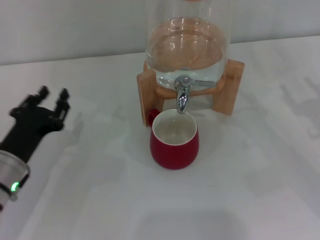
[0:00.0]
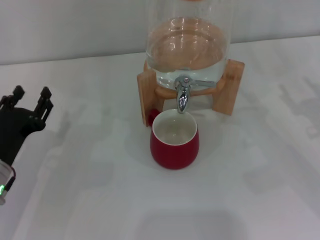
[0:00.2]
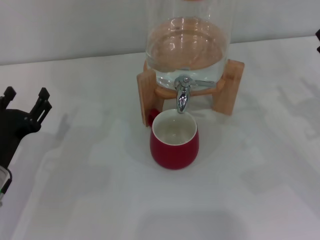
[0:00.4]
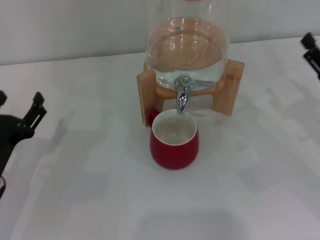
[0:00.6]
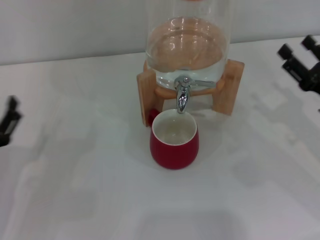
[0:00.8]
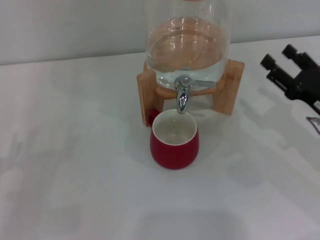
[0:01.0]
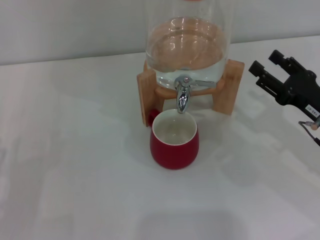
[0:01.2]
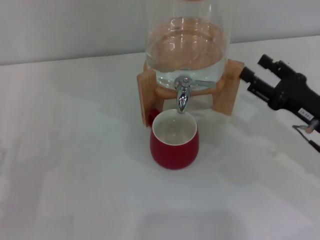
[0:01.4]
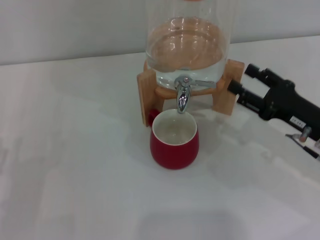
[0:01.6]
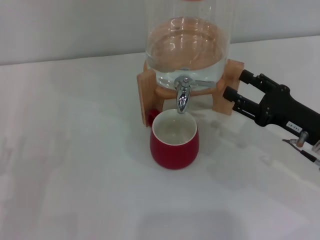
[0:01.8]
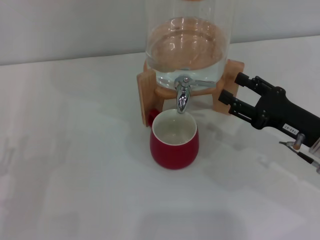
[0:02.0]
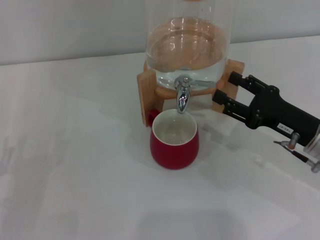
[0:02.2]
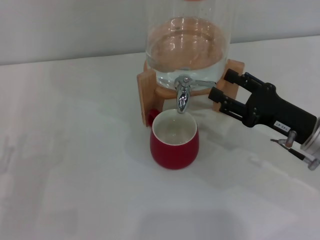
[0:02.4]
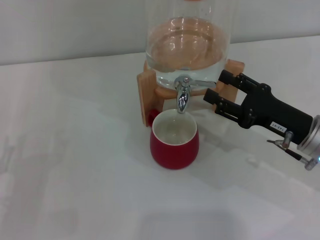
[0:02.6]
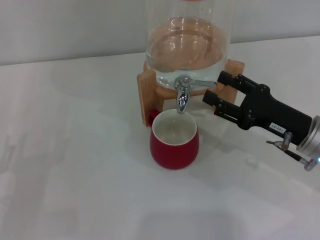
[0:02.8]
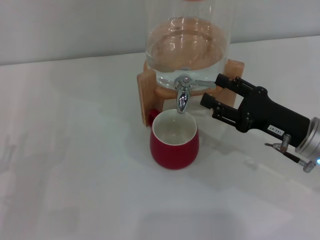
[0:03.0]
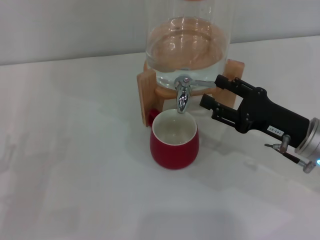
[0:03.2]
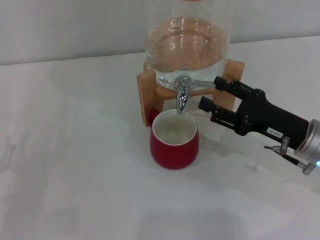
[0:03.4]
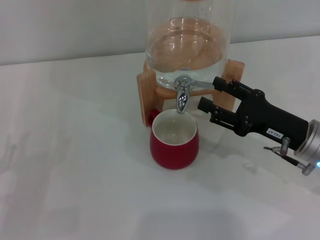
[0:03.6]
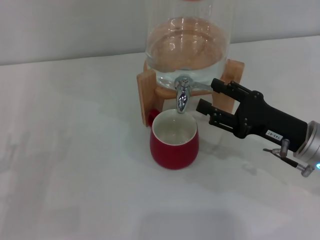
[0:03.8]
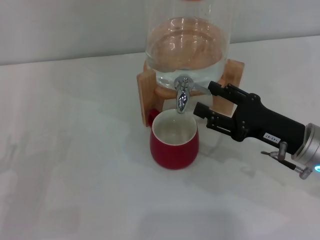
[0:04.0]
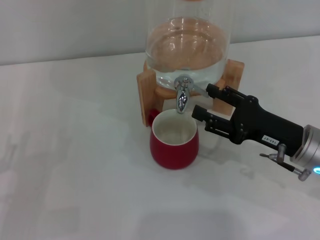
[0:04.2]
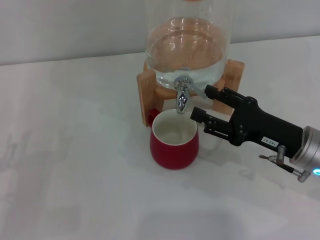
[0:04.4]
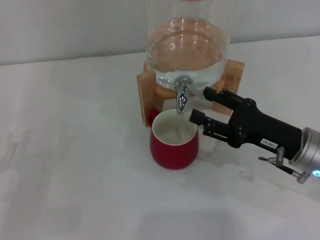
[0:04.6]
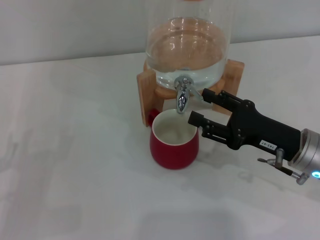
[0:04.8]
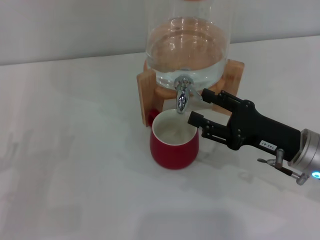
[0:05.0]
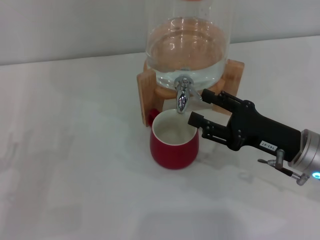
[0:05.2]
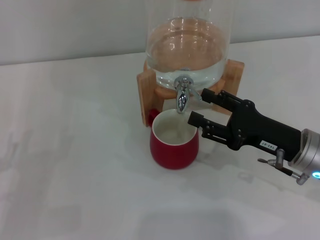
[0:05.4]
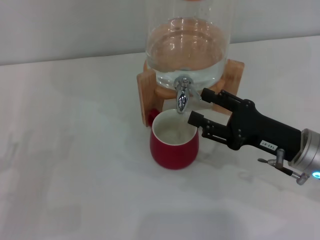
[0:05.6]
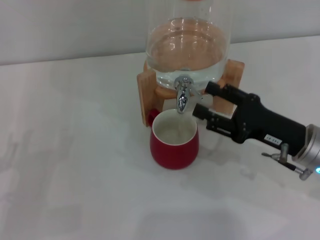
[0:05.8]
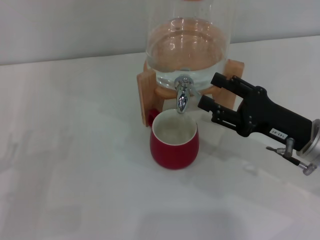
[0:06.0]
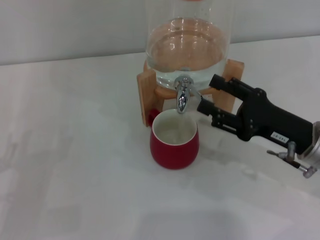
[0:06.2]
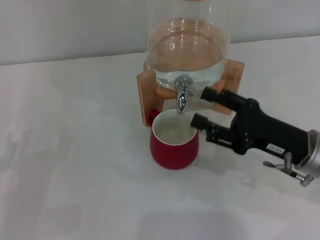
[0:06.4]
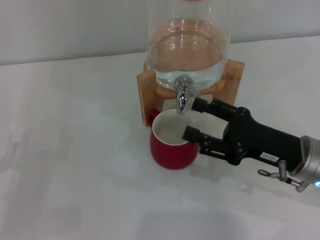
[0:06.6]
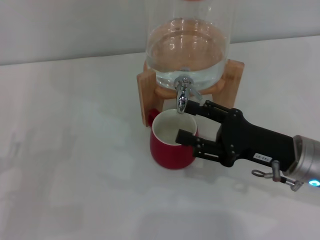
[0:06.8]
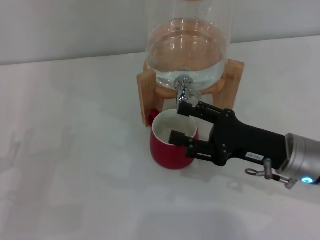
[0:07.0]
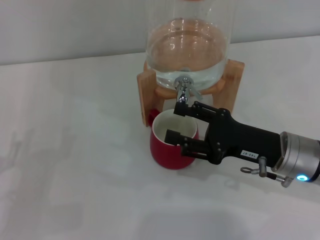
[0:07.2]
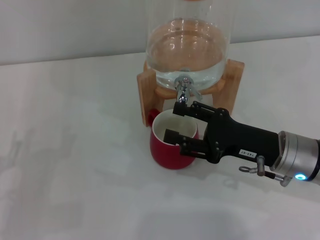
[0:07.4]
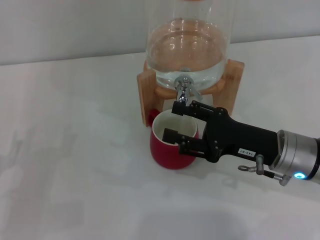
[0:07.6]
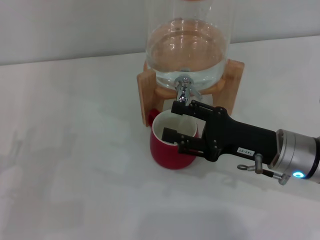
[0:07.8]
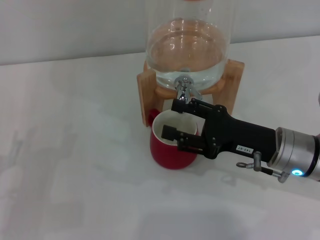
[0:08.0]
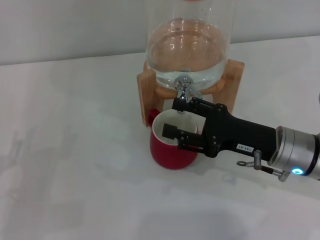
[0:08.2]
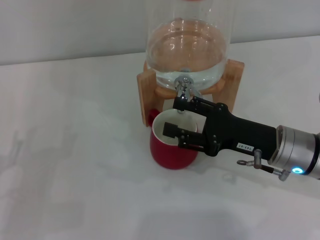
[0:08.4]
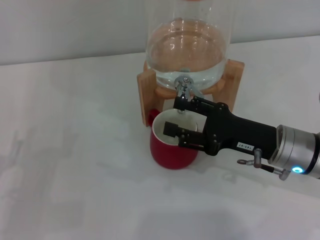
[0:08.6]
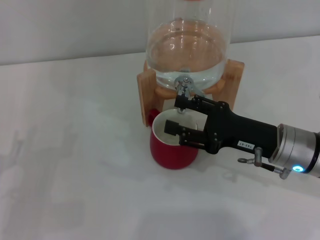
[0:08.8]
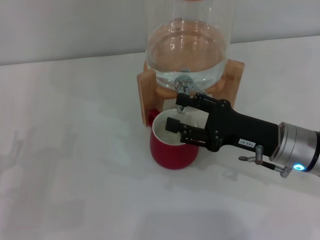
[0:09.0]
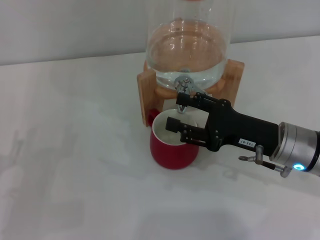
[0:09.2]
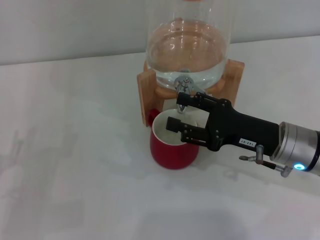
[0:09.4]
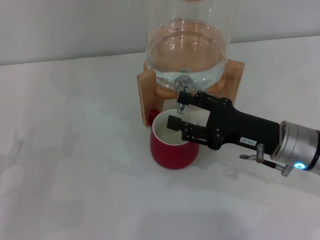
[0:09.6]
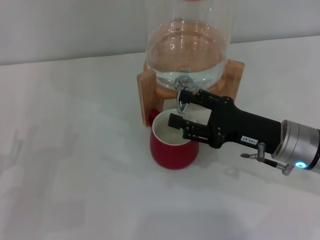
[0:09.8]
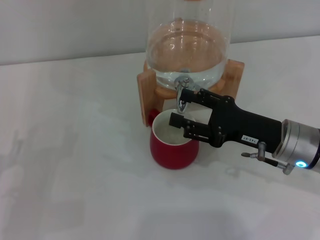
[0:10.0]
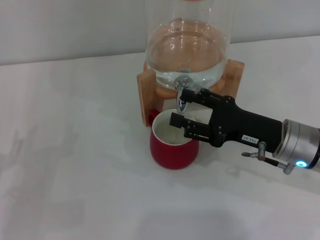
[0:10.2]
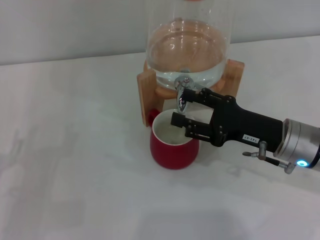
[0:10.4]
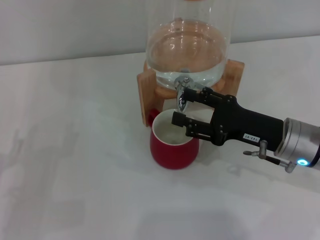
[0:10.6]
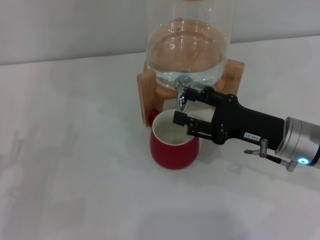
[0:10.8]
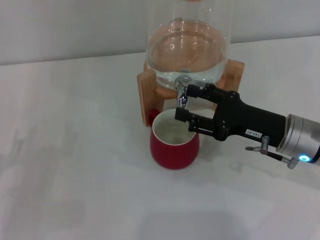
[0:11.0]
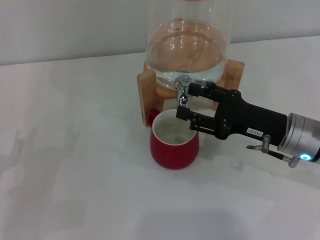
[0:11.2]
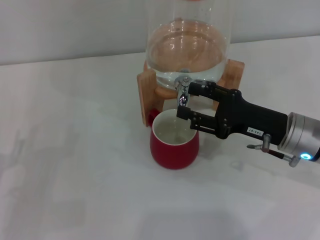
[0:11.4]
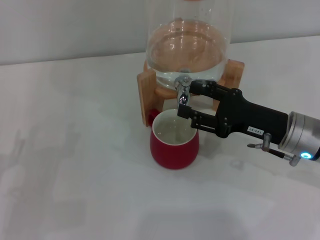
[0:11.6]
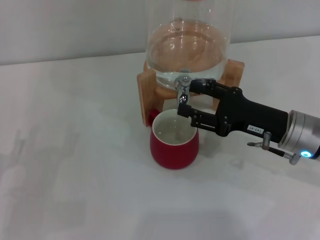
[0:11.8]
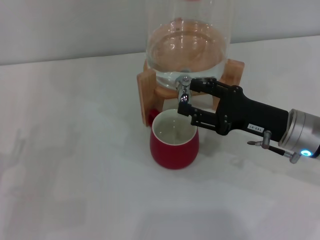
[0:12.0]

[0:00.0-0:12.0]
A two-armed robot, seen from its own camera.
Task of the whole recording: the left gripper pick up the red cup and place it horizontally under the faucet, the right gripper turn on the faucet to fill the cup, and then turn off the faucet.
Step, 0:00.0 to 0:07.8: Open the dispenser valve and fill the cup with water with the right gripper.
0:00.0 to 0:01.6: The right gripper shifts some 5 cm to the left. Meanwhile the left gripper is displaced to the left and backward by some 10 cm, and opens.
0:01.6 to 0:04.4: The grippers stay close to where they were, moving slightly.
0:04.4 to 0:06.0: Neither gripper changes place.
0:06.0 to 0:07.6: The grippers make only small movements.
0:07.6 to 0:09.0: Both grippers stay about where they are.
0:09.0 to 0:10.4: Neither gripper changes place.
0:10.4 to 0:12.0: There are only small adjustments of the grippers.

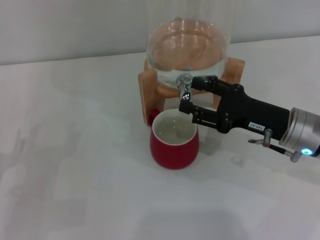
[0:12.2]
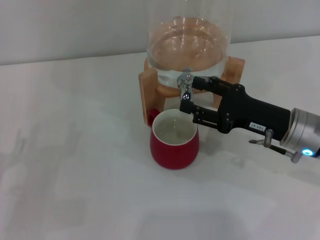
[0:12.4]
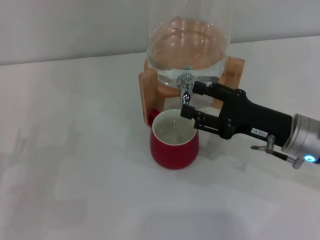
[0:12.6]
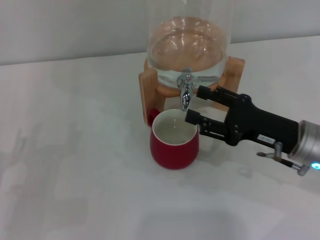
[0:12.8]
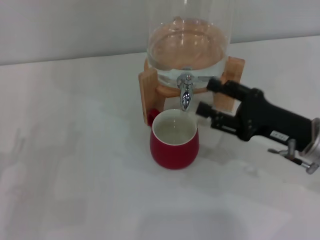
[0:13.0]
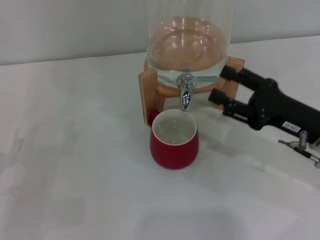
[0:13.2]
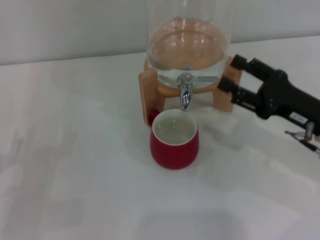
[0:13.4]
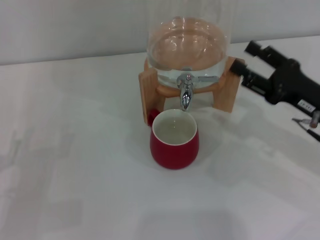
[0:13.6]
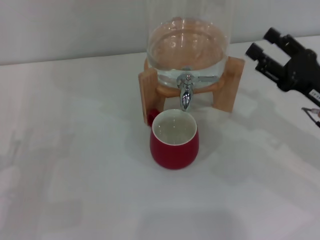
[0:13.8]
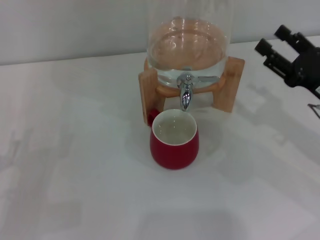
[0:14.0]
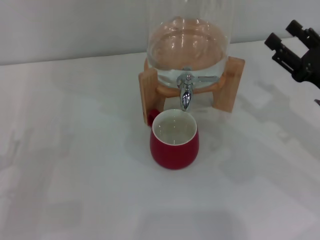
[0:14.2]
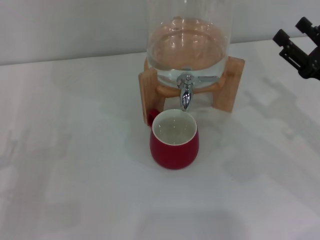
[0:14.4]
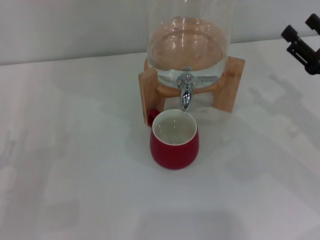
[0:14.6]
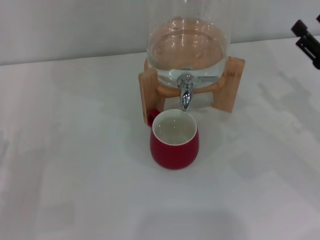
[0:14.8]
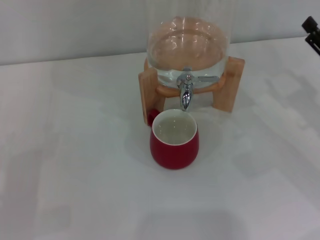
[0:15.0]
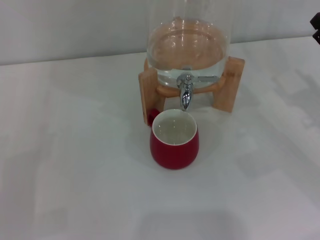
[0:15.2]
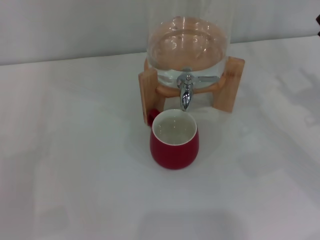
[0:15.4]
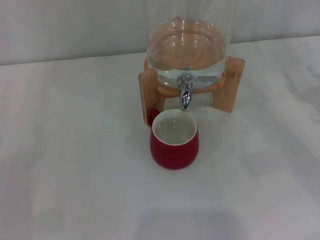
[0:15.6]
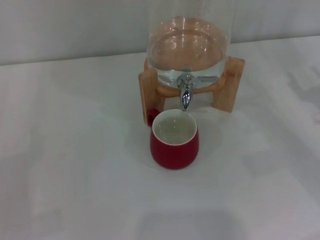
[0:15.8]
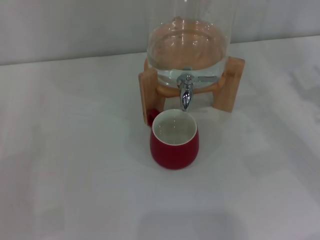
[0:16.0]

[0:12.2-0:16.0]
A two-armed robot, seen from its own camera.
Task of the whole recording: the left gripper pick up the red cup and place it horizontally under the faucet, the right gripper turn on the faucet to fill the cup, and then turn off the faucet.
0:12.2 to 0:13.4: The grippers stay close to where they were, moving slightly.
0:13.4 to 0:14.8: The right gripper goes roughly 5 cm to the right.
0:14.8 to 0:16.0: The grippers stay close to where they were, moving slightly.

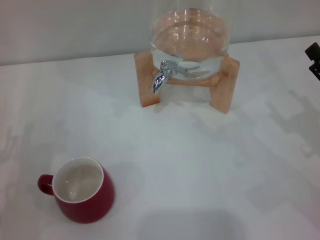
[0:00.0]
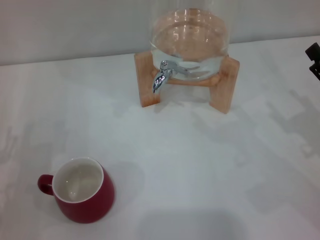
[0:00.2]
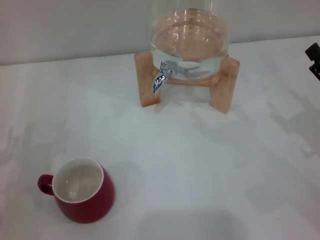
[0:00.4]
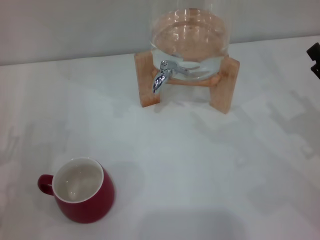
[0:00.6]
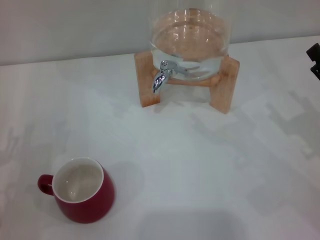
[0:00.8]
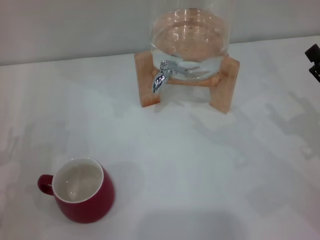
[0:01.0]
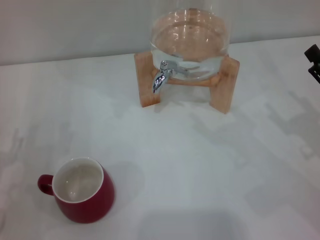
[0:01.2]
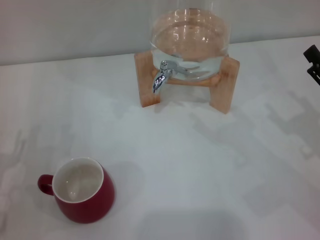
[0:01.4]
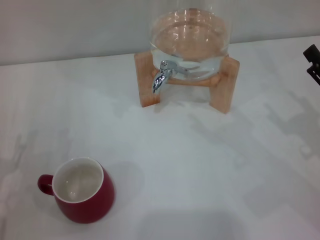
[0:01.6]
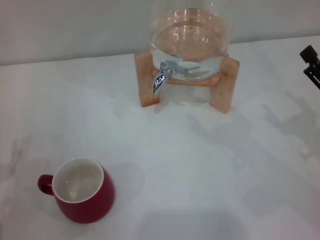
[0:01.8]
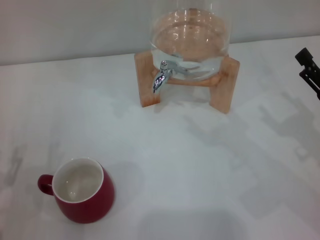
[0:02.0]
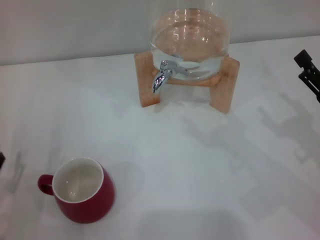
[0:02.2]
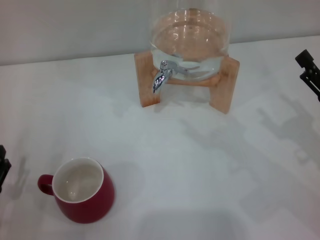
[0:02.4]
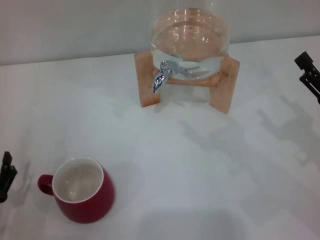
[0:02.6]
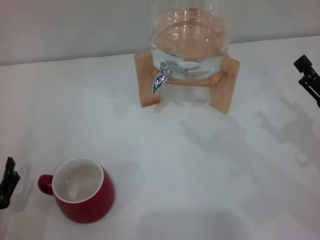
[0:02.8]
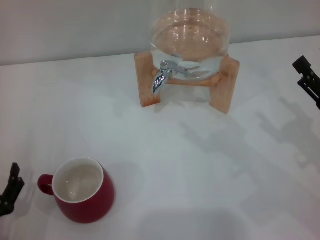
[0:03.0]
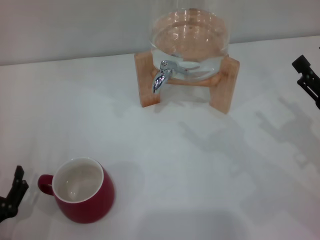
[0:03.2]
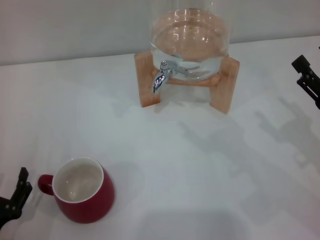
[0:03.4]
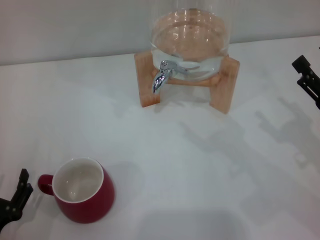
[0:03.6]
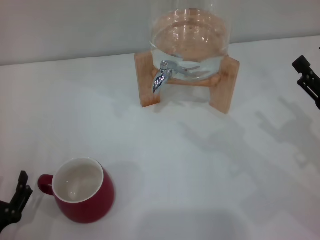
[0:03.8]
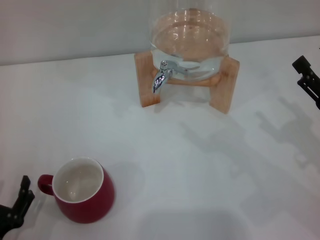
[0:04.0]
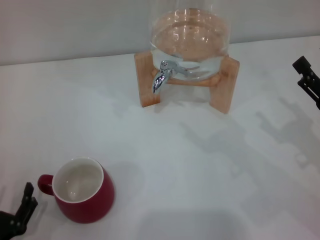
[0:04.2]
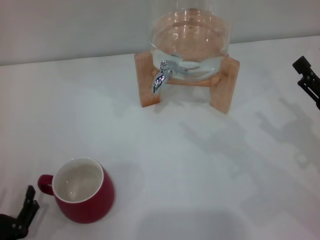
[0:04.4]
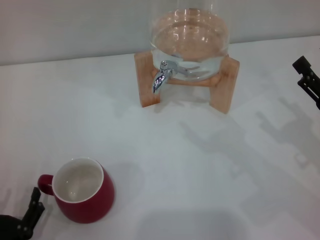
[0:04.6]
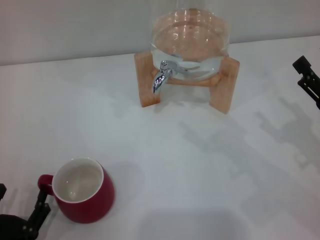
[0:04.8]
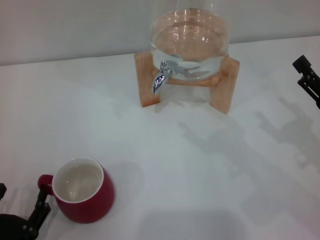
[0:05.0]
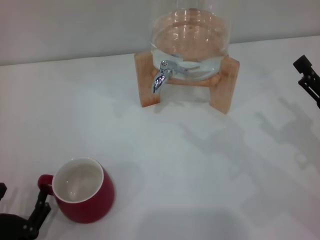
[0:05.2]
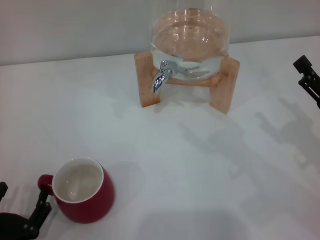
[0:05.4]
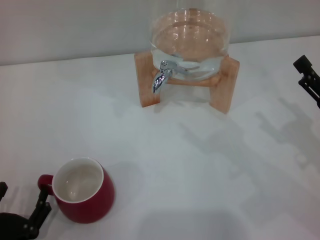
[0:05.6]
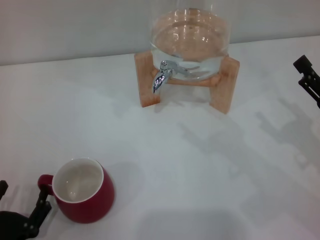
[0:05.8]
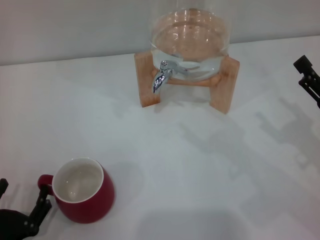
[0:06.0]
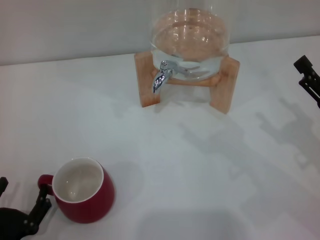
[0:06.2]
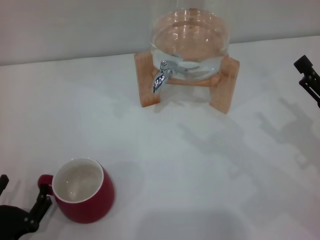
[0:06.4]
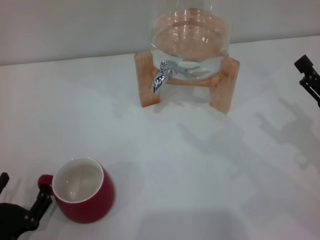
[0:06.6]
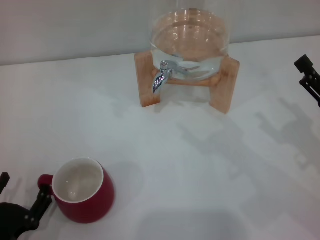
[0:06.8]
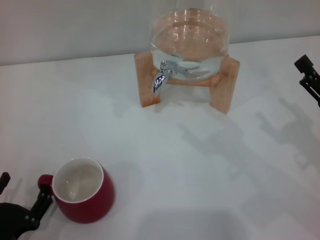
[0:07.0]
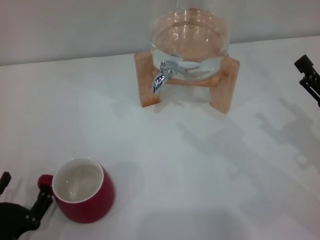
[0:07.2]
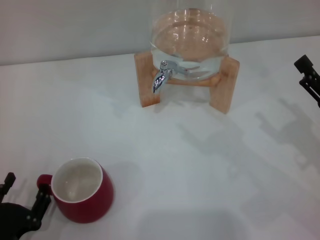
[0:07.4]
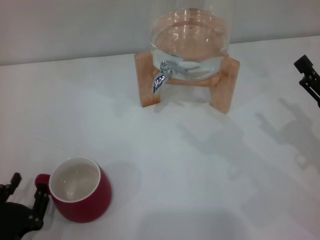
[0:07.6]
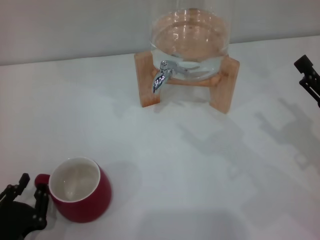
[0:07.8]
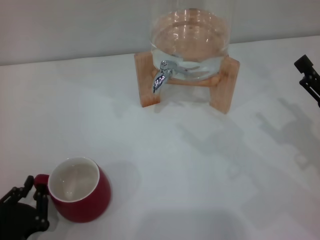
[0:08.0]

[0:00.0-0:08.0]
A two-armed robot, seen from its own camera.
Task of the whole recording: the left gripper pick up the red cup and place it horizontally under the faucet, the right gripper turn on the faucet to fill the cup, and then turn off the faucet.
0:01.6 to 0:03.2: The left gripper is displaced backward by some 5 cm.
0:03.2 to 0:04.8: The grippers make only small movements.
0:04.8 to 0:06.4: Neither gripper changes place.
0:06.4 to 0:08.0: The left gripper closes.
